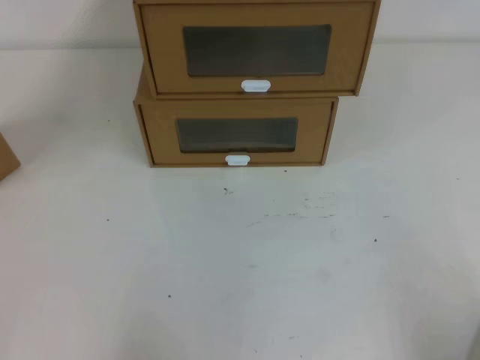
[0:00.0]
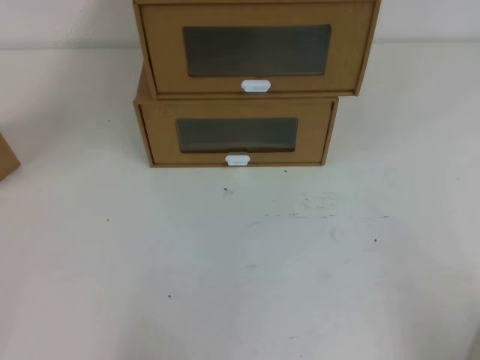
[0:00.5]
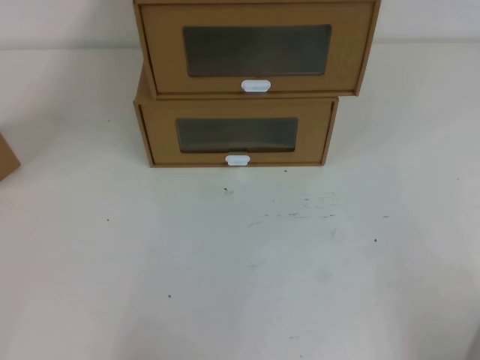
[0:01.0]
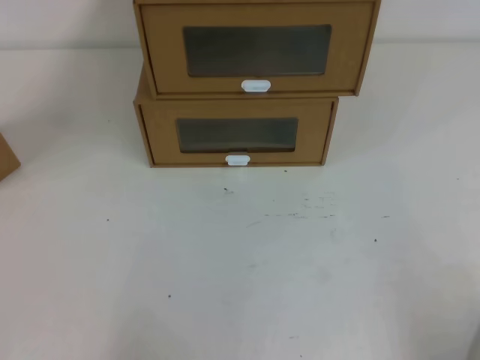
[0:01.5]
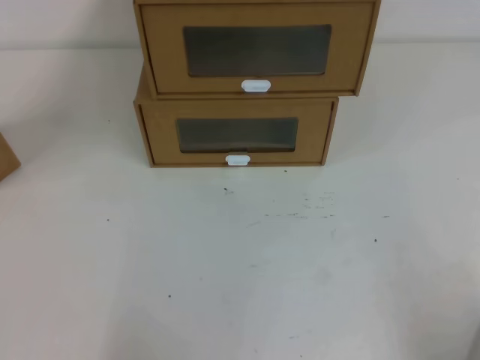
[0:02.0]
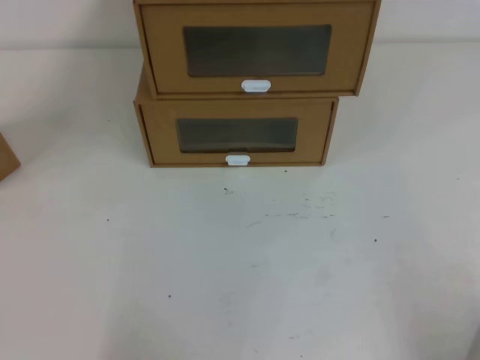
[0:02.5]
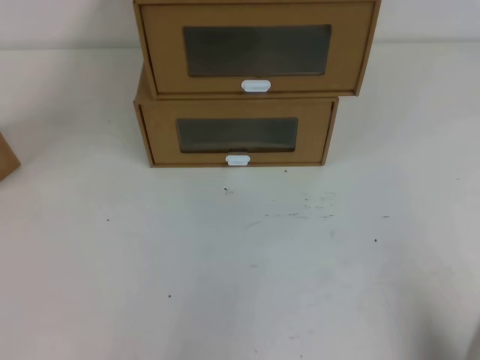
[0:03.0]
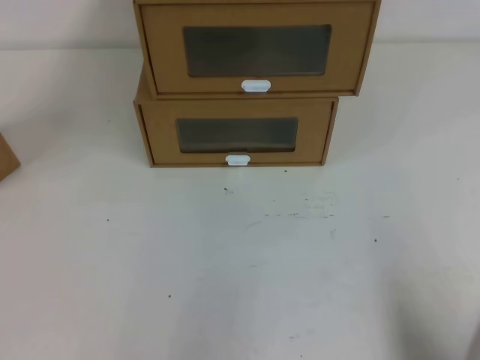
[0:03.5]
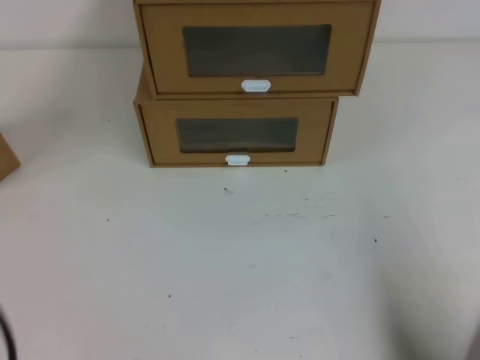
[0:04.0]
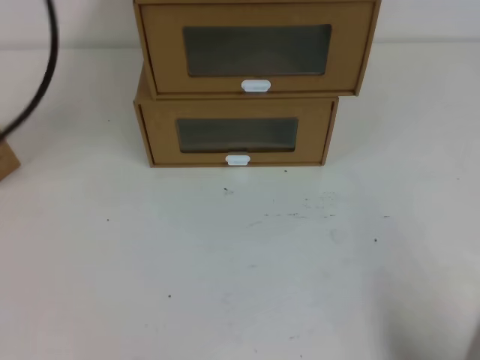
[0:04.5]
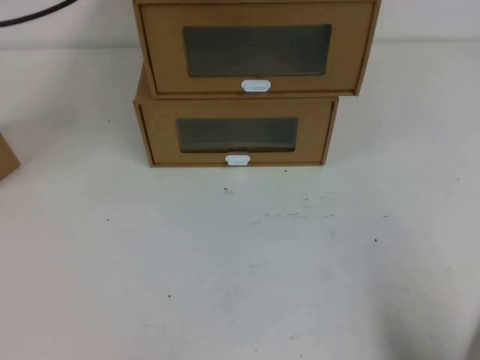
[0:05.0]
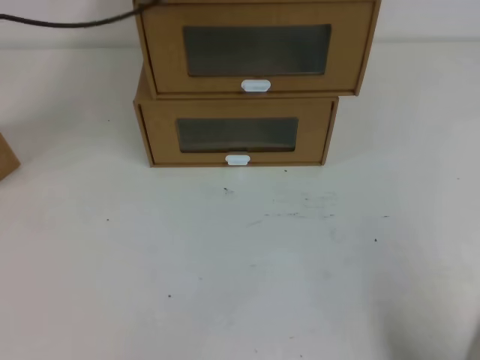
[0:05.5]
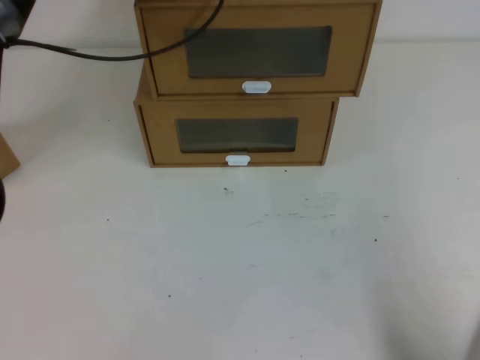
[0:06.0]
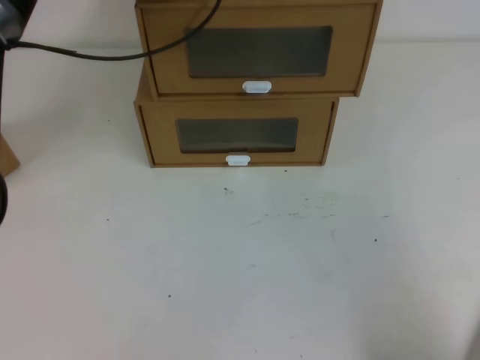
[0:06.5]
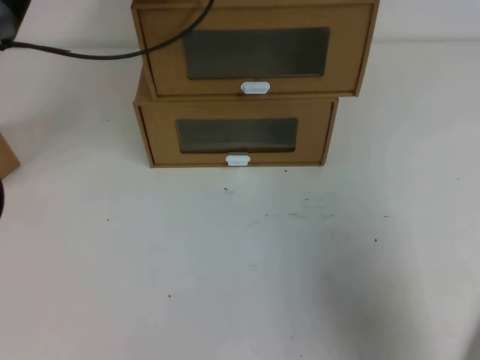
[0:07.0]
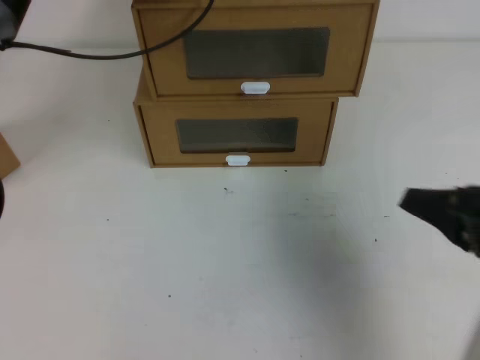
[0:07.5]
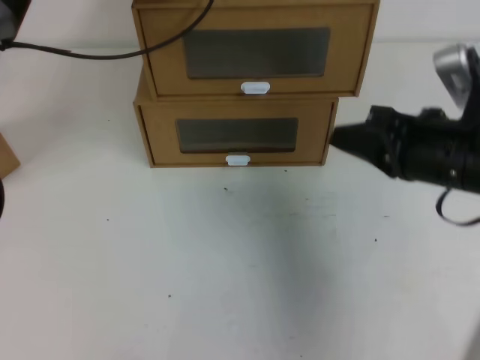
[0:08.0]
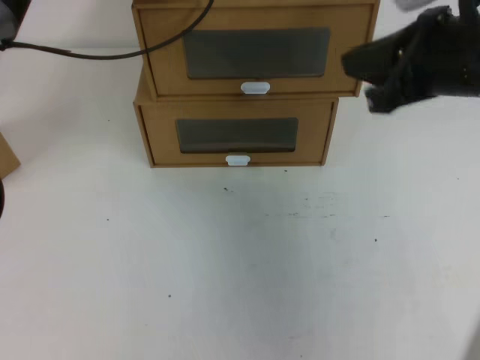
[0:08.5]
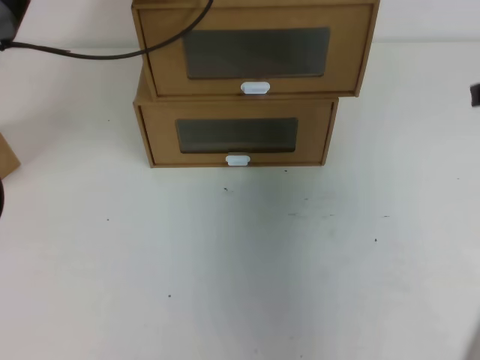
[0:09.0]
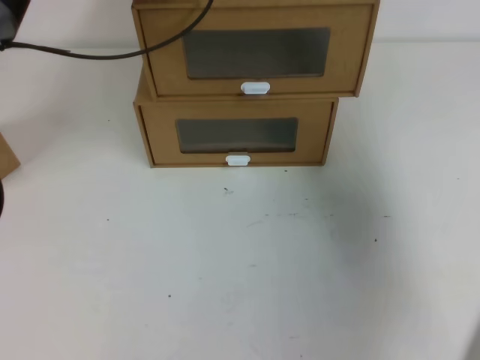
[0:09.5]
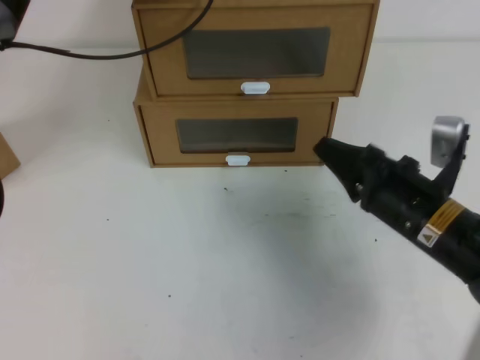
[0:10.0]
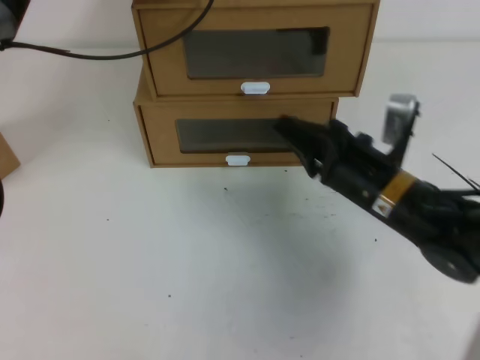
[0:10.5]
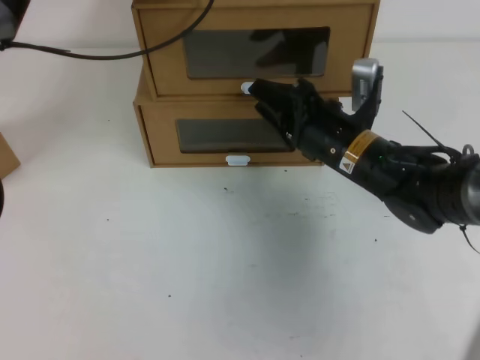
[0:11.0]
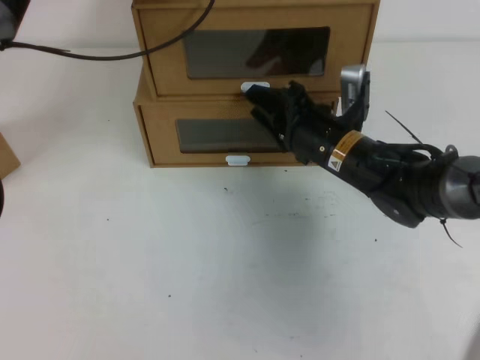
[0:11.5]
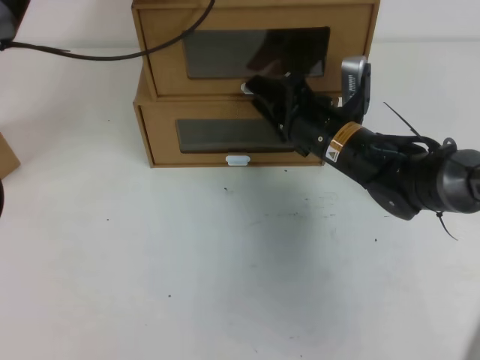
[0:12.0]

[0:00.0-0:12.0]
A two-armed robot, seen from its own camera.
Task of the whole recording: open the shoebox on the table.
4.0 to 6.0 s: The left gripper moves forward, approximately 40 cm.
6.0 to 8.0 s: The right gripper goes roughly 25 cm forward, upward and to the left.
8.0 to 10.0 s: The right gripper travels downward by about 10 cm.
10.0 to 12.0 s: The right gripper travels forward and to the left by some 15 cm, and opens its fingers.

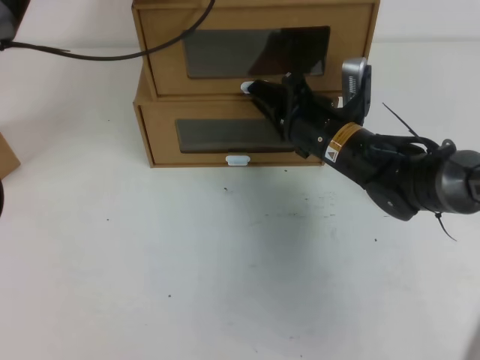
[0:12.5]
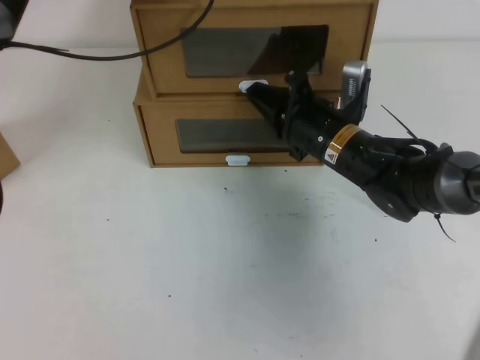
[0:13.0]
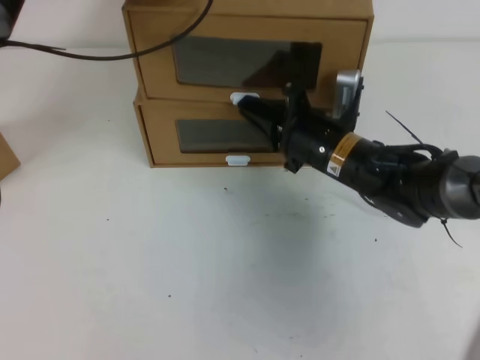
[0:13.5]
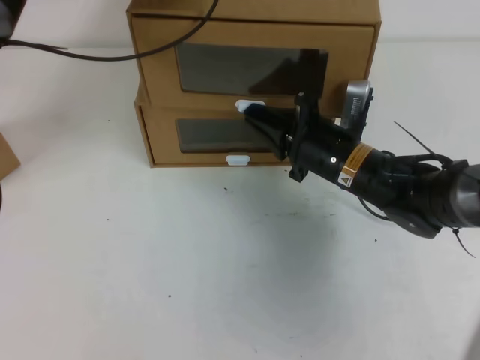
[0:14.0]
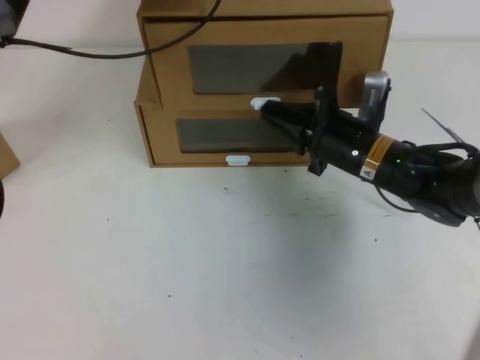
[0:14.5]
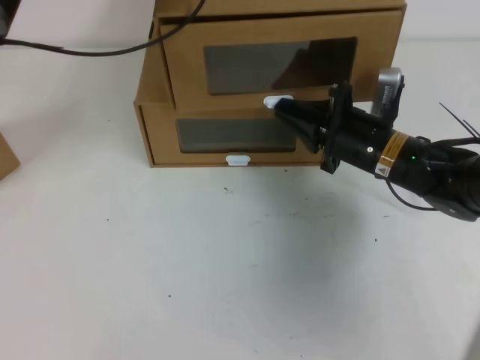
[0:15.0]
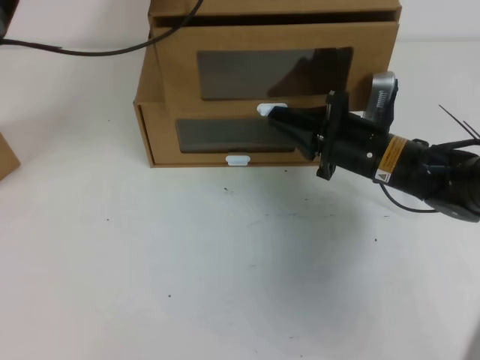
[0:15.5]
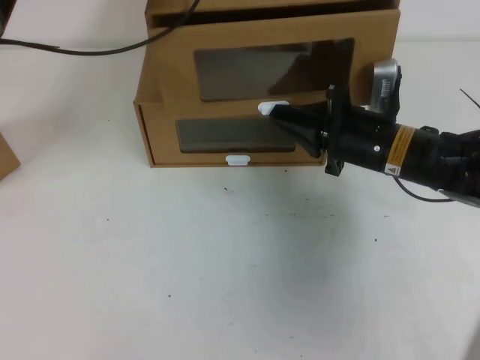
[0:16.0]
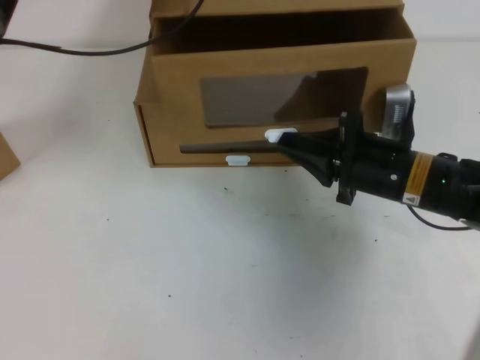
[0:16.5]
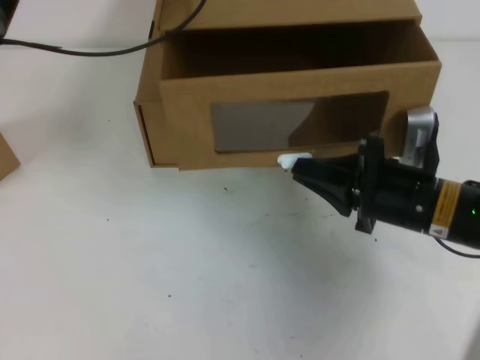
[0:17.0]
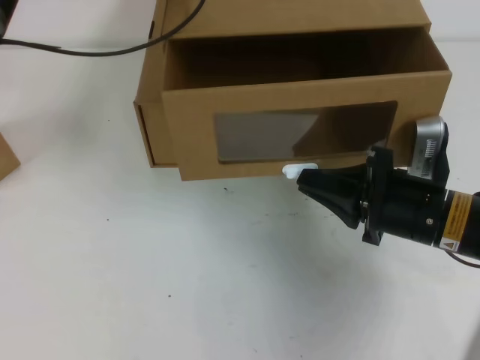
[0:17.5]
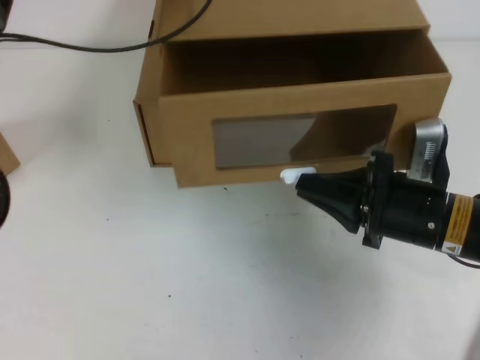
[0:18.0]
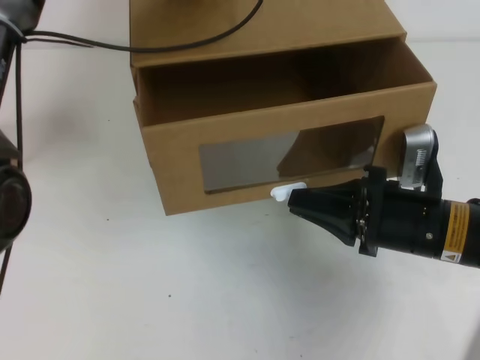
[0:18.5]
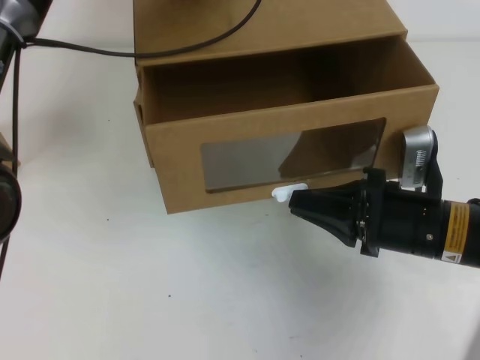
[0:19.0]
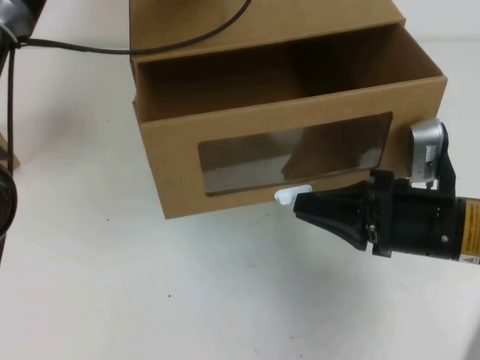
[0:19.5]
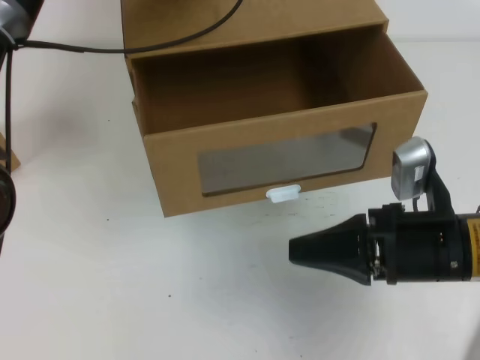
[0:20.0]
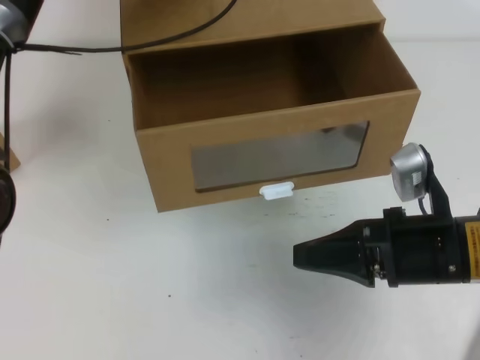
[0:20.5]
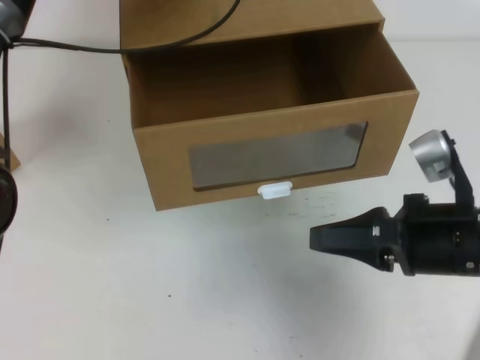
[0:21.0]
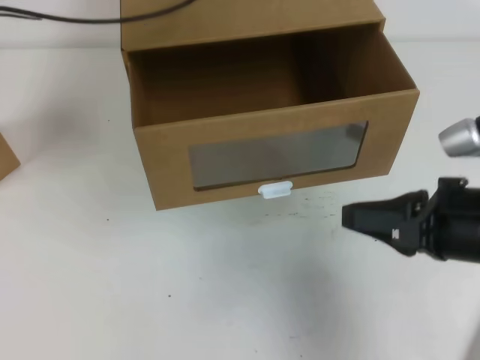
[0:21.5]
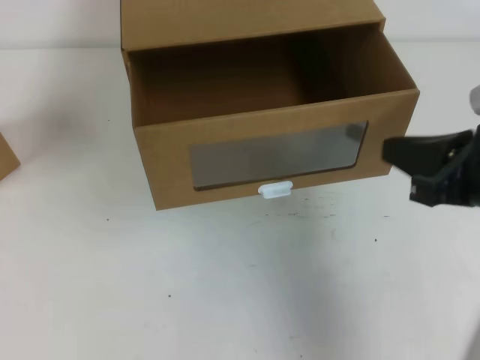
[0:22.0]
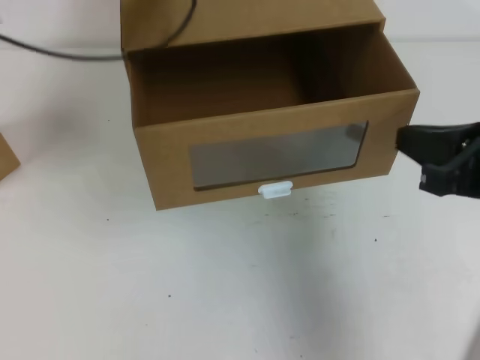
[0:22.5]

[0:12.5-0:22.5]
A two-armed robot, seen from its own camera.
Task of the whole recording: open the shoebox on the table.
12.5 to 14.5 s: The right gripper closes its fingers.
14.5 to 16.5 s: The right gripper moves roughly 5 cm.
16.5 to 18.5 s: The right gripper moves backward, roughly 5 cm. The left gripper moves approximately 5 cm.
20.5 to 22.5 s: The left gripper is displaced to the left, backward and upward by some 10 cm. The right gripper shifts some 10 cm upward and to the right.

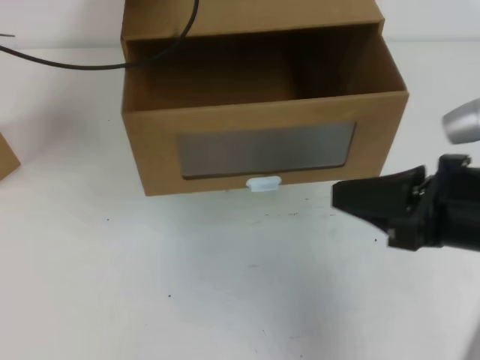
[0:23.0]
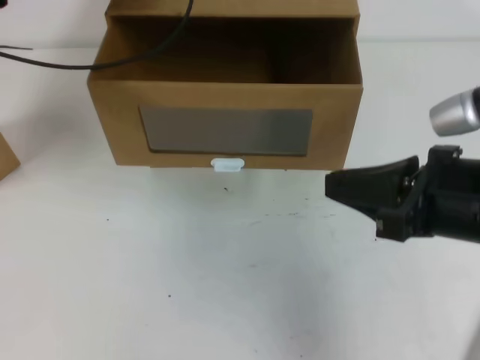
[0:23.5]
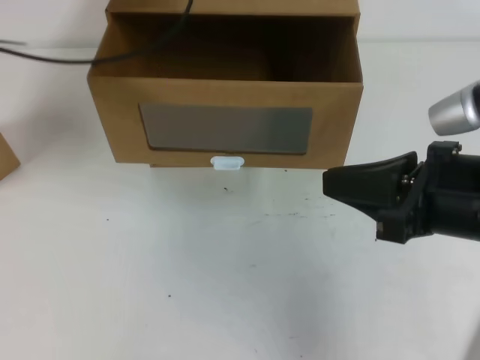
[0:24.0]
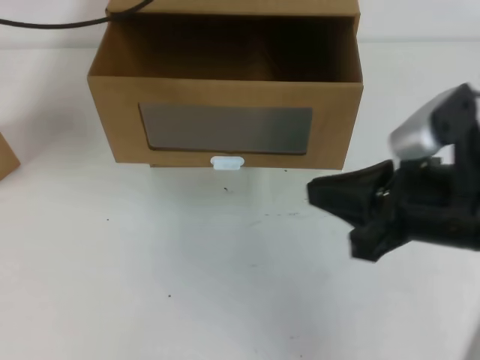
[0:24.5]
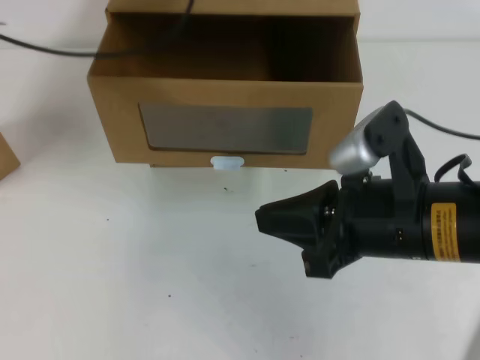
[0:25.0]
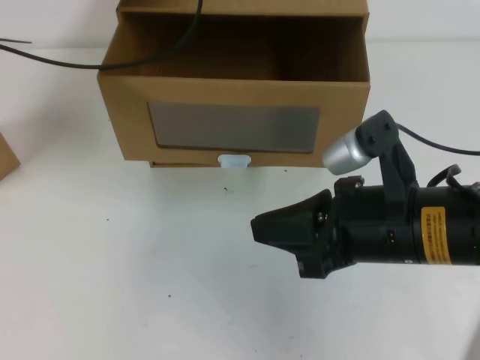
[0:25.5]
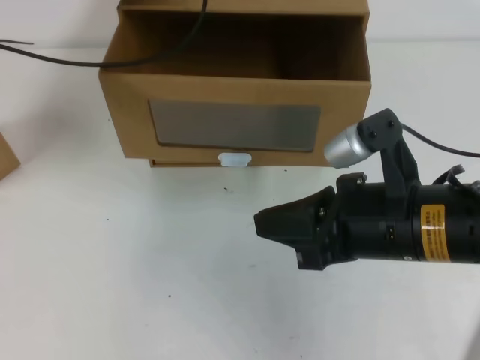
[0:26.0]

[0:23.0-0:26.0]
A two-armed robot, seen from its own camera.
Task of the whole recording: open the shoebox on the table.
Step, 23.0 to 26.0 s: Open the shoe box.
23.0 to 24.5 s: The left gripper heads upward, covering approximately 5 cm.
24.5 to 26.0 s: The left gripper travels downward by approximately 10 cm.

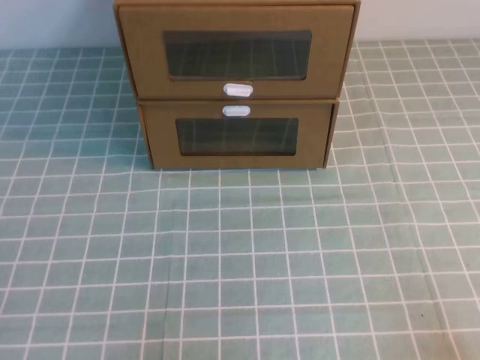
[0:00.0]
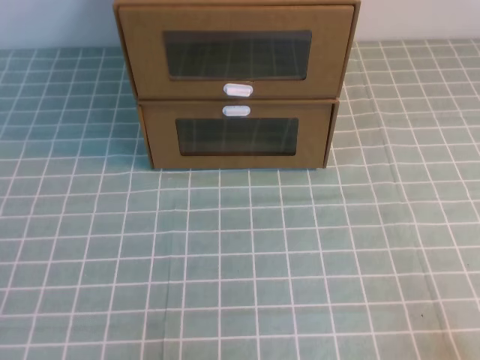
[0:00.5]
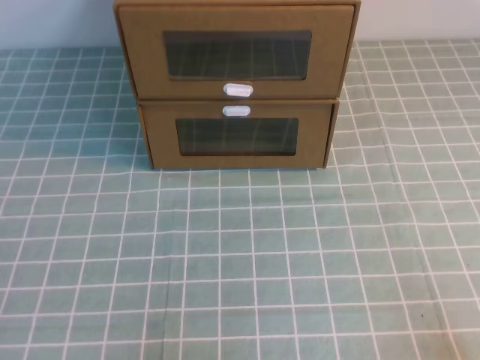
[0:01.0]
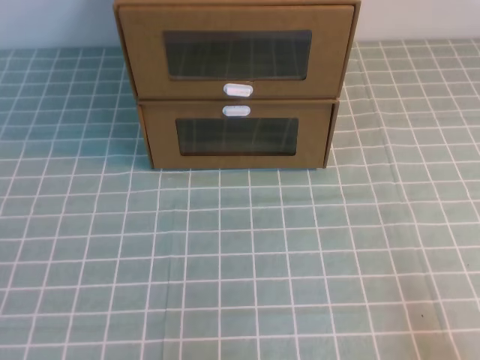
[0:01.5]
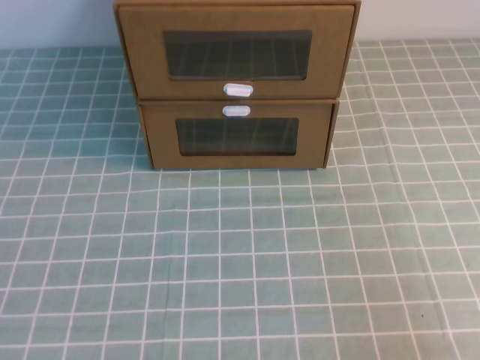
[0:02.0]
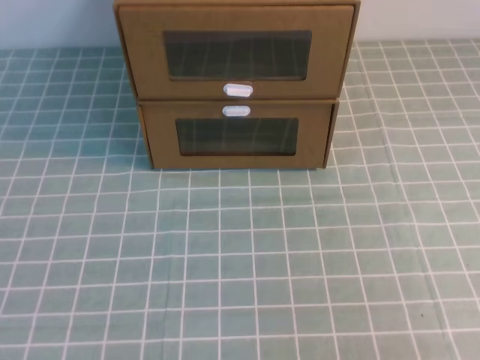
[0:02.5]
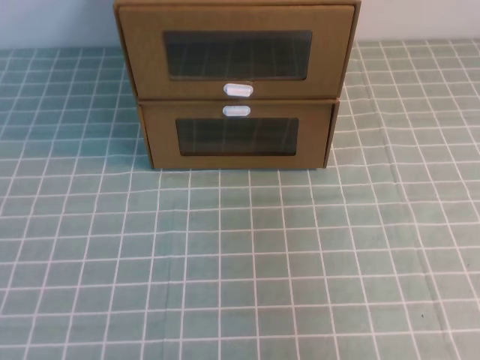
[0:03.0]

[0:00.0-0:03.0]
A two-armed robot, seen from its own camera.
Task of the whole recording: open the shoebox on the cyan tablecloth.
1.5 to 3.0 s: Both grippers travel together upward, some 25 cm.
